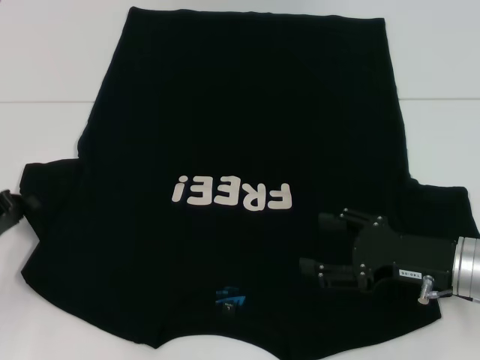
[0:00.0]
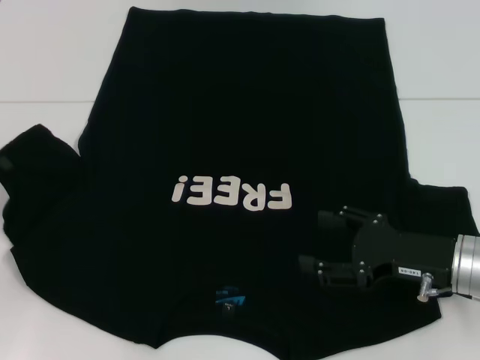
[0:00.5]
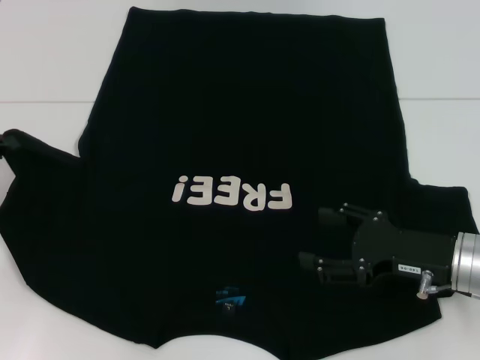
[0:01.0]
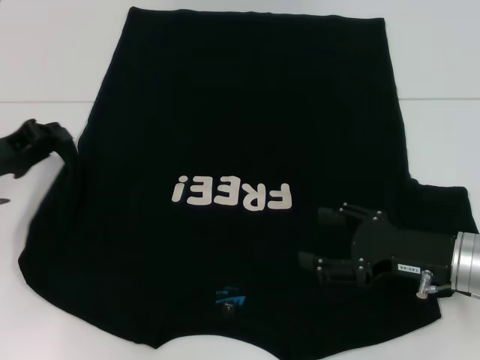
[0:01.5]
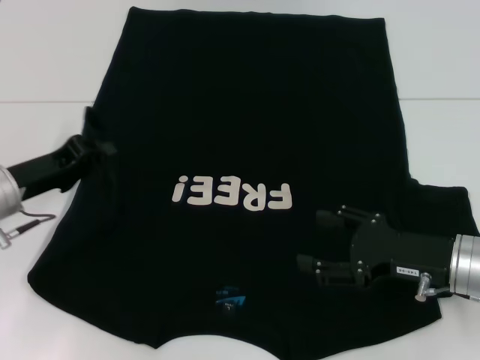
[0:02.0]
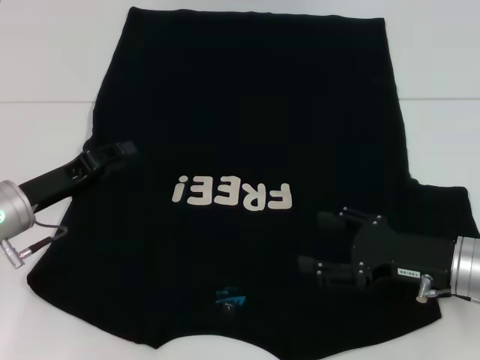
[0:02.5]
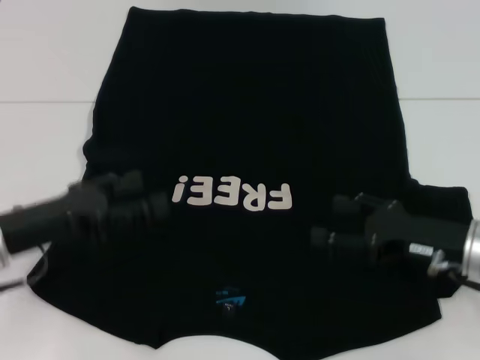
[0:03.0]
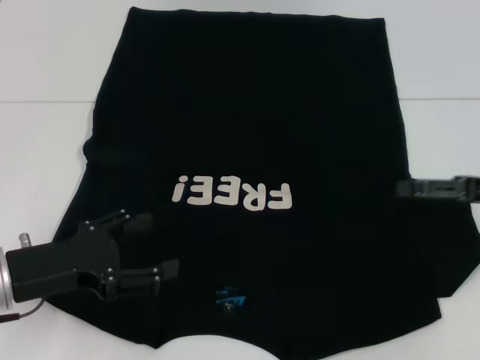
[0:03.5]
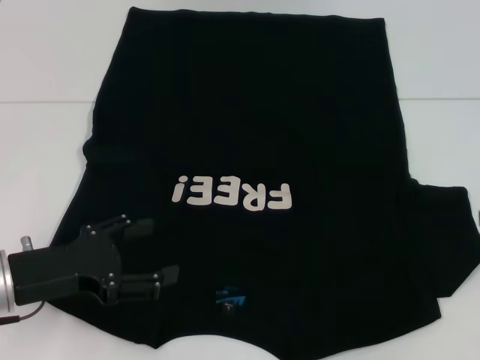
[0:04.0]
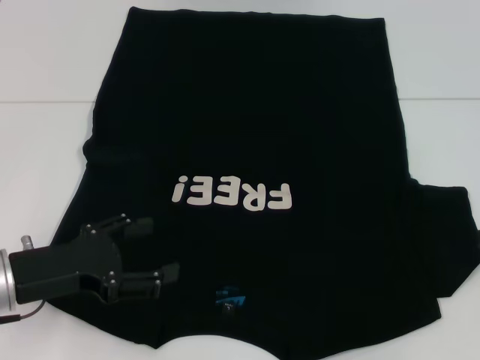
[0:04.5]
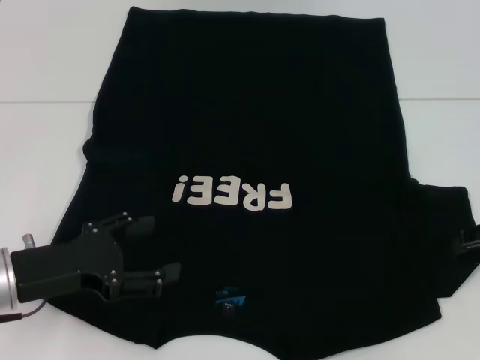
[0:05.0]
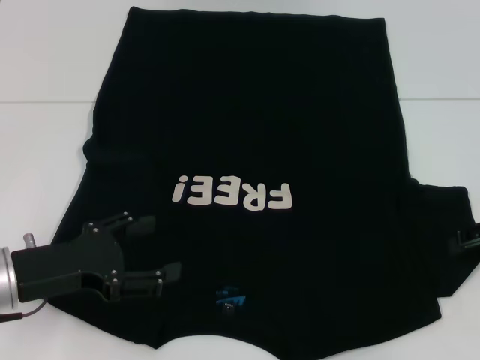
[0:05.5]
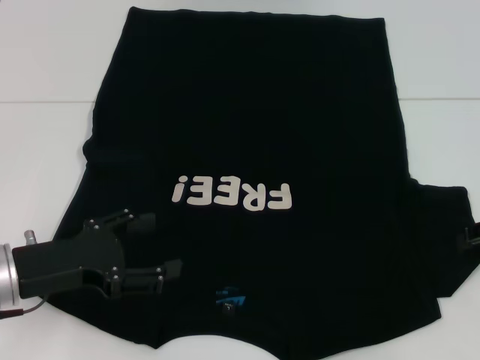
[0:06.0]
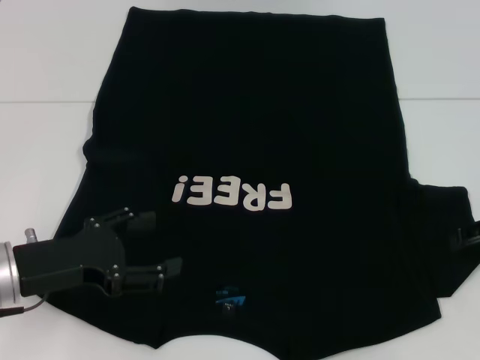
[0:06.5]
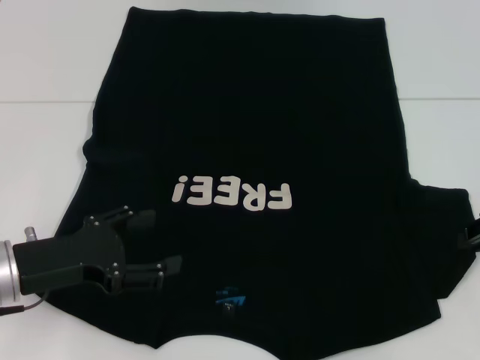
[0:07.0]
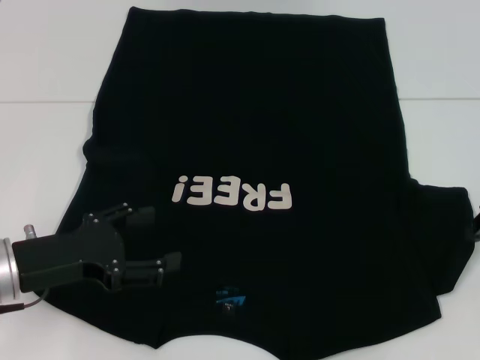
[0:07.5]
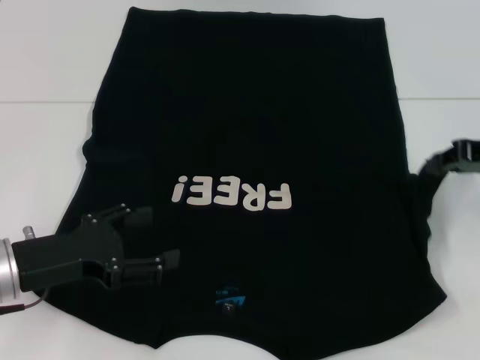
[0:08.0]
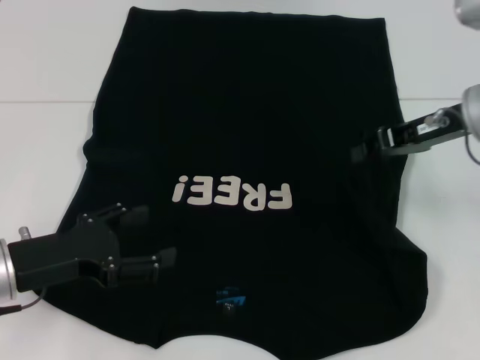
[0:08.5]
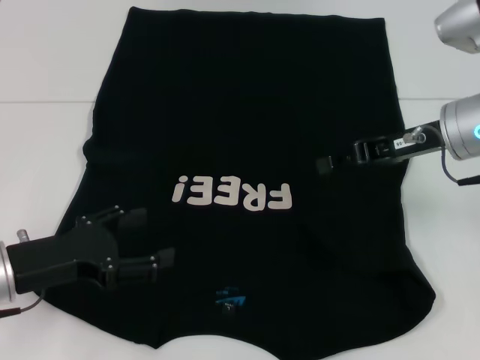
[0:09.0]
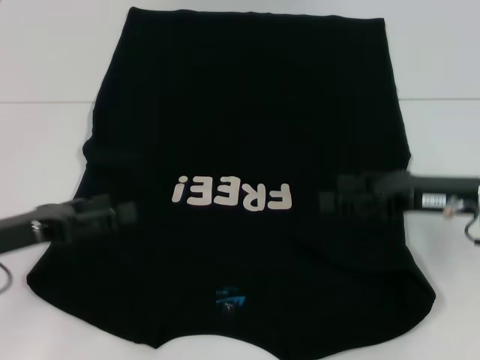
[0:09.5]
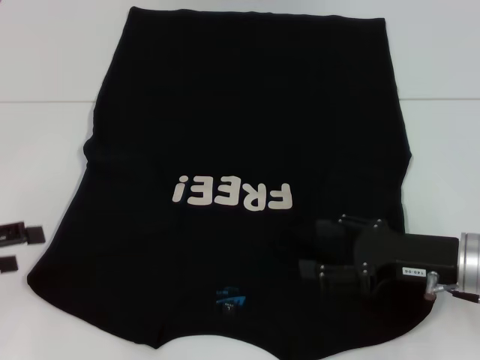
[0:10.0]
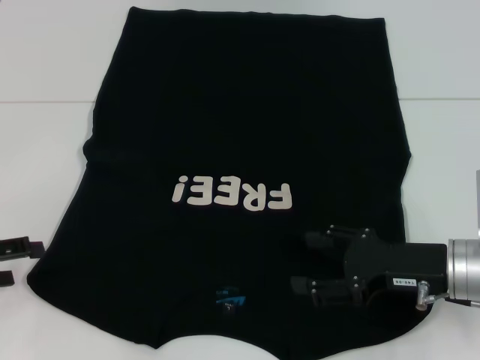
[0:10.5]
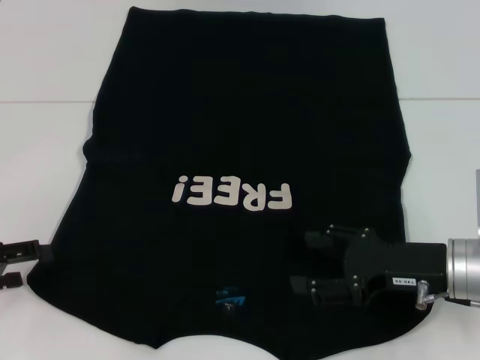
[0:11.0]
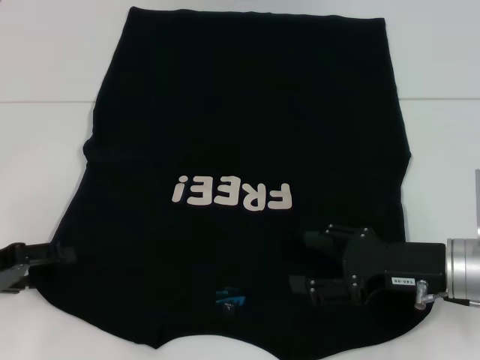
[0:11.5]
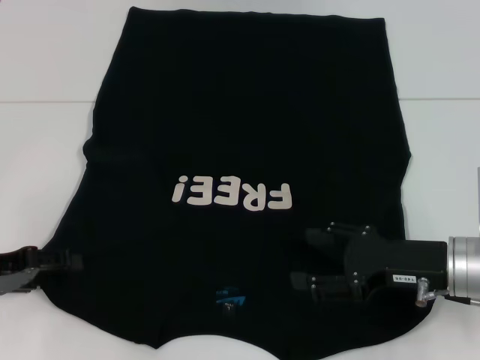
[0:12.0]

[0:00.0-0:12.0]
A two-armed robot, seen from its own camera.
Step, 0:00.0 to 0:03.0: Fold the bottom left sleeve with your left hand.
Step, 0:03.5 to 0:09.5: Fold the bottom right sleeve with your right hand.
0:00.0 to 0:02.0: The left gripper travels to the right by some 5 cm.
0:02.0 to 0:04.0: The right gripper moves to the right and upward, about 20 cm. Meanwhile the left gripper travels backward by about 10 cm, and opens up.
0:06.0 to 0:08.0: The right gripper ends up approximately 5 cm from where it was, and closes.
0:08.0 to 0:10.0: The right gripper goes about 15 cm downward, backward and to the left, and opens up. Meanwhile the left gripper travels to the left by about 10 cm.
0:10.0 to 0:12.0: The left gripper ends up some 5 cm from where it was.

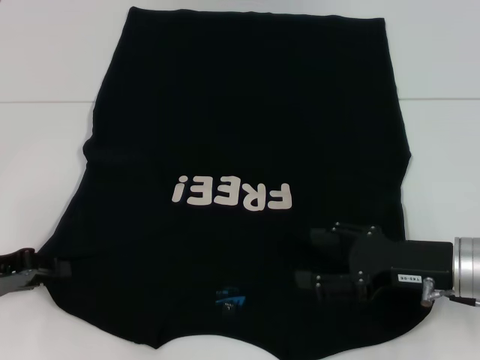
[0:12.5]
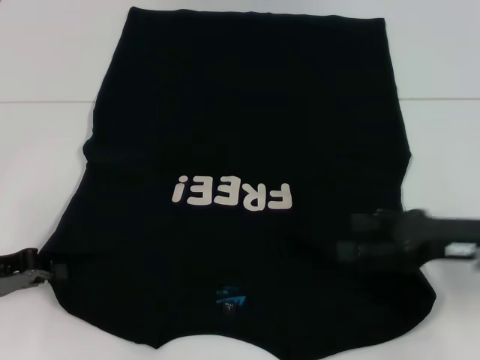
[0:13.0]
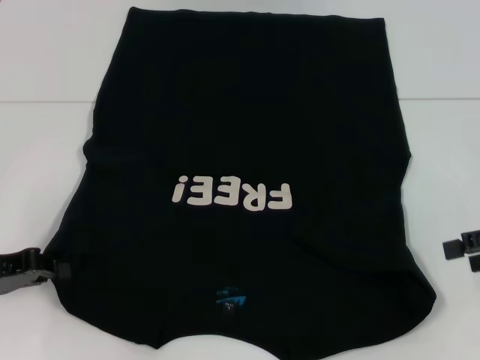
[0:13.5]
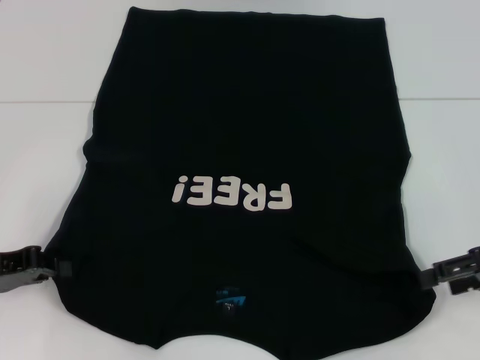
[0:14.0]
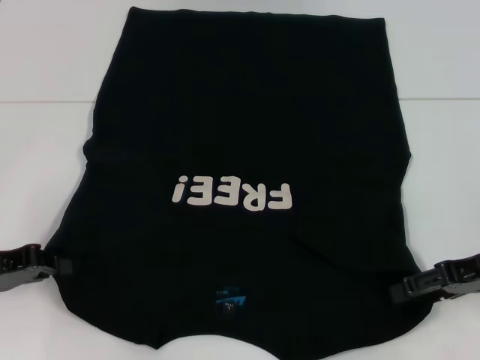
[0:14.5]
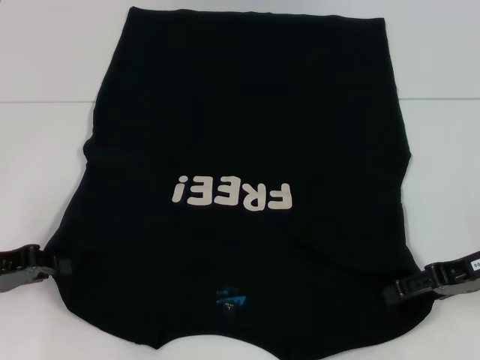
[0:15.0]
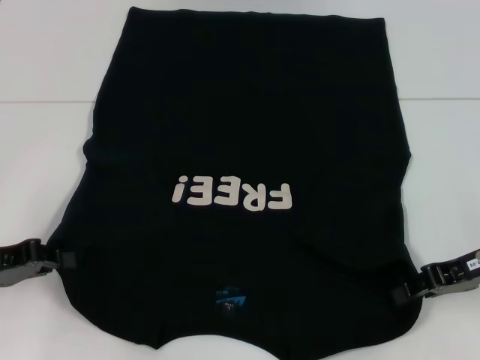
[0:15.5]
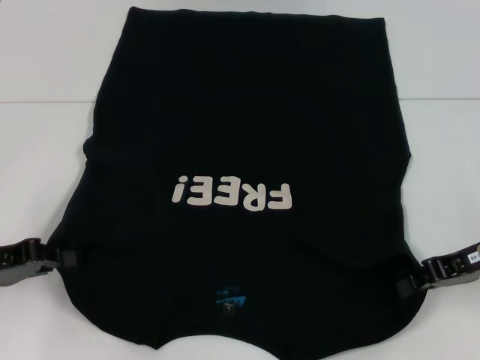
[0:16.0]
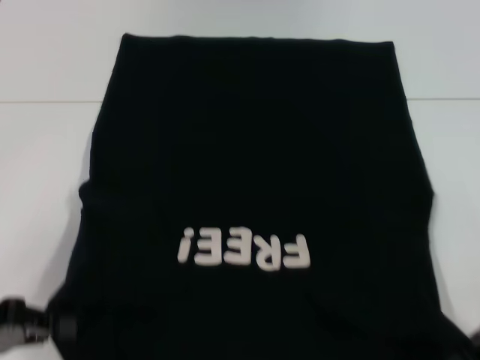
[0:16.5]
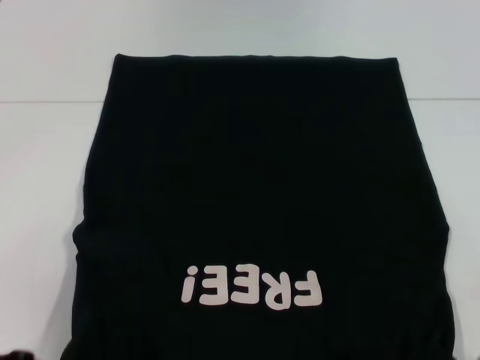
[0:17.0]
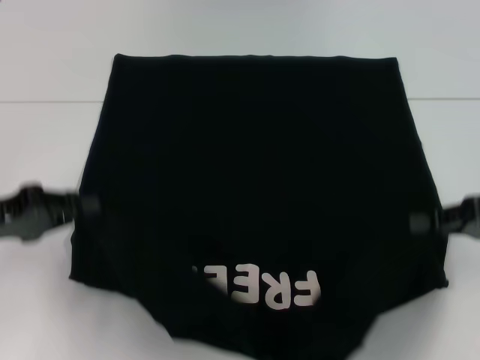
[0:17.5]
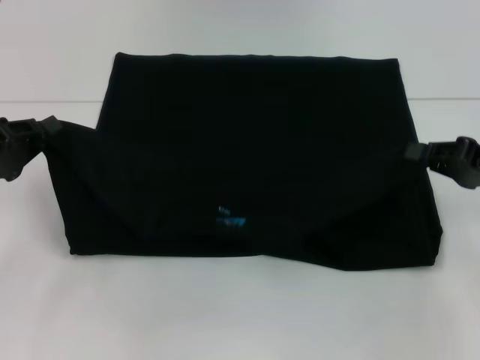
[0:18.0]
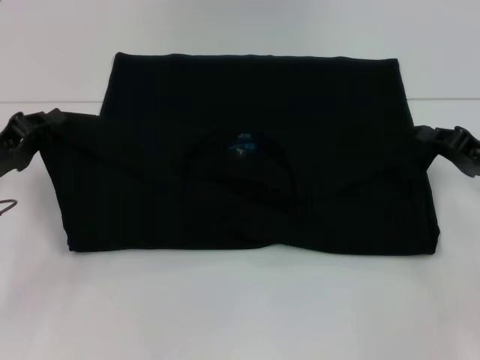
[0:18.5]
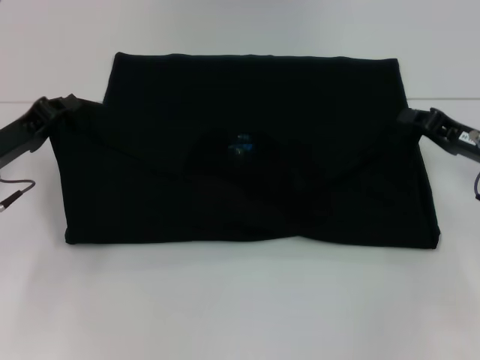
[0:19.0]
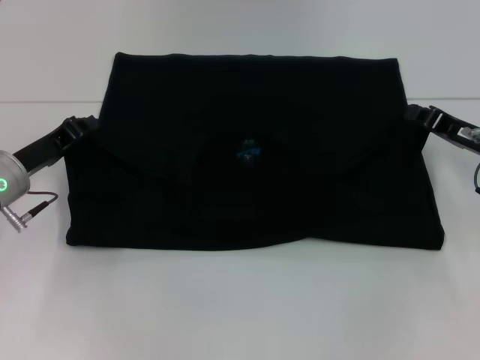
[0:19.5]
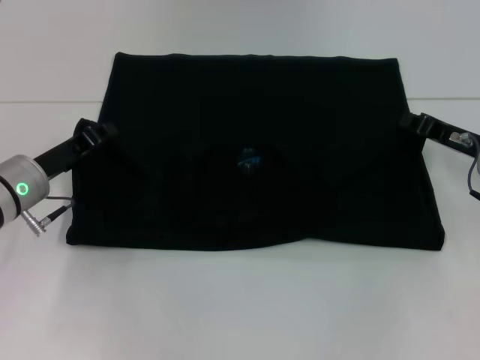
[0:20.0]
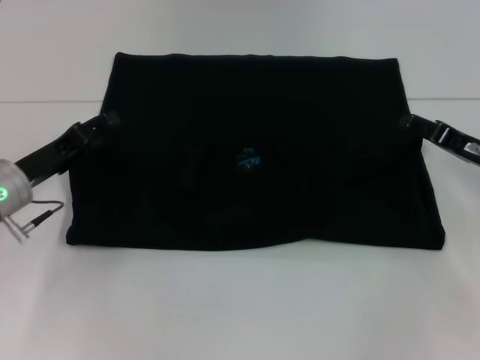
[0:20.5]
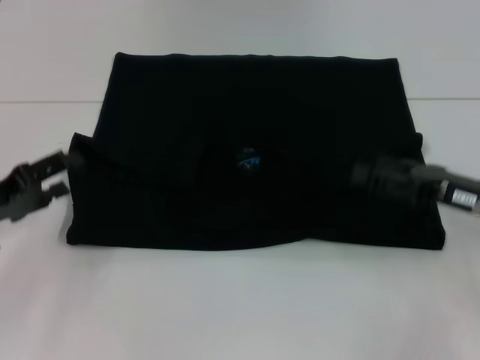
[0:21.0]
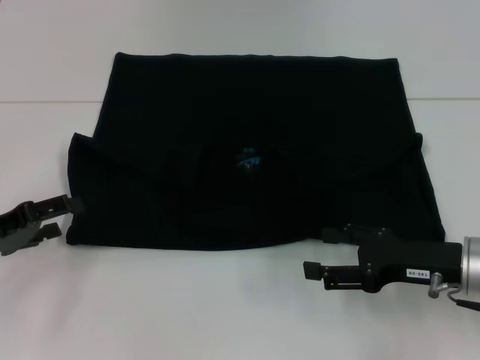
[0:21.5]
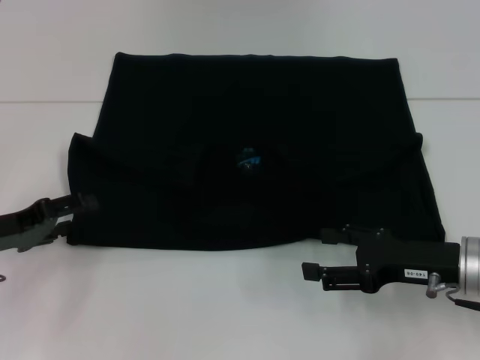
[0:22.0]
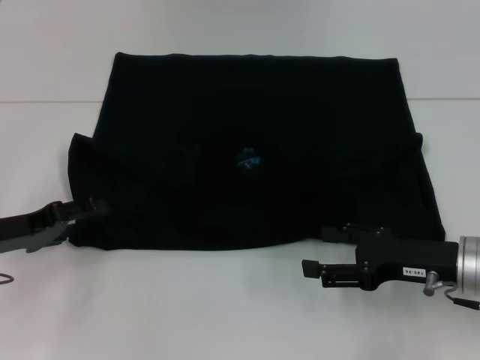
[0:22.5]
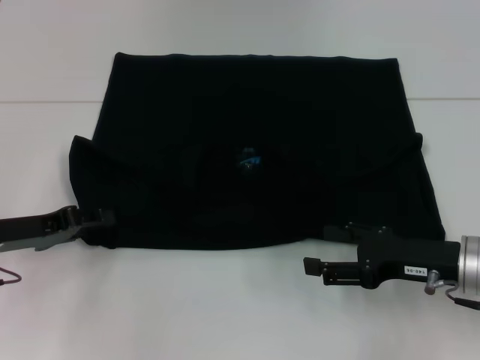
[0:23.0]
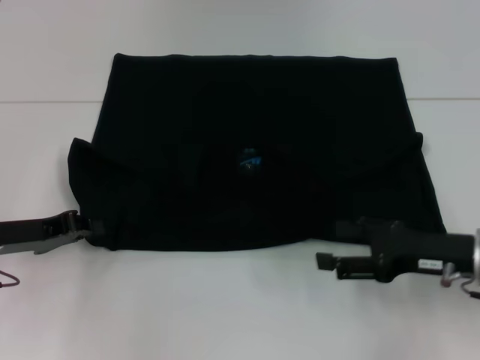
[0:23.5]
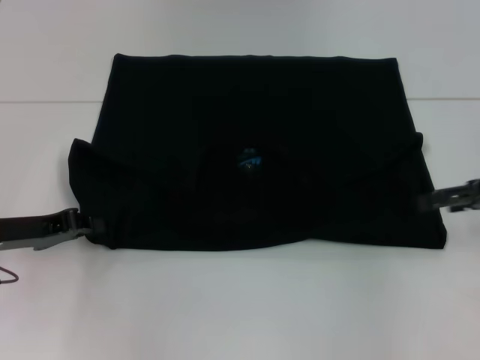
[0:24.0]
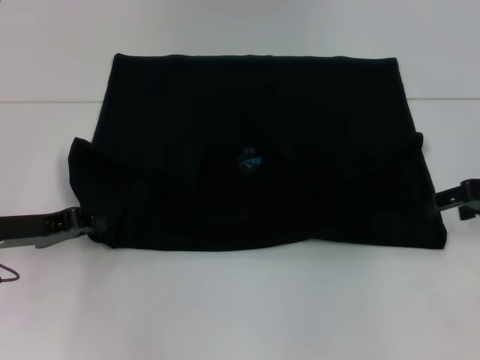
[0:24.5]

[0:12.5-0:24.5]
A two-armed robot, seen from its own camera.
Step, 0:12.5 to 0:16.0: Grab the bottom right corner with your right hand.
Step, 0:16.5 to 0:20.5: Fold the clothes with your left hand.
Step, 0:16.5 to 0:20.5: Fold the clothes with your right hand.
0:12.5 to 0:14.5: The left gripper closes its fingers. The right gripper heads to the right, covering some 5 cm.
0:14.5 to 0:16.5: The right gripper closes; the left gripper travels backward by some 5 cm.
0:16.5 to 0:18.5: The right gripper travels downward by approximately 5 cm; the left gripper heads forward, covering some 10 cm.
0:18.5 to 0:20.5: The right gripper opens. Meanwhile the left gripper changes place by about 5 cm, and opens its fingers.
0:20.5 to 0:22.5: The right gripper shifts about 10 cm backward and to the left, and opens up; the left gripper changes place by roughly 5 cm, and opens up.
0:22.5 to 0:24.5: The left gripper closes, while the right gripper shifts roughly 15 cm upward, to the right and forward.

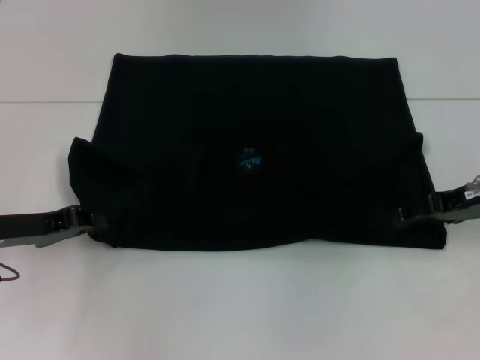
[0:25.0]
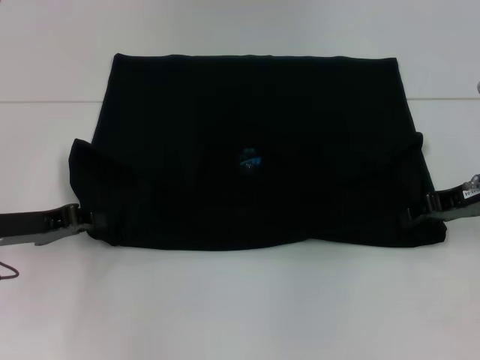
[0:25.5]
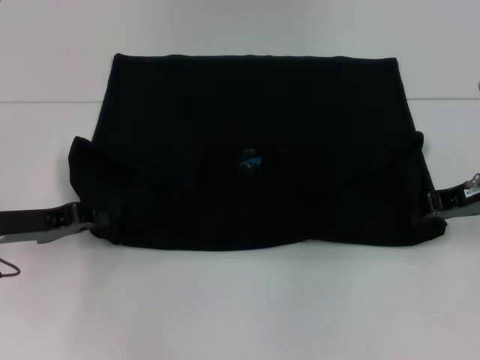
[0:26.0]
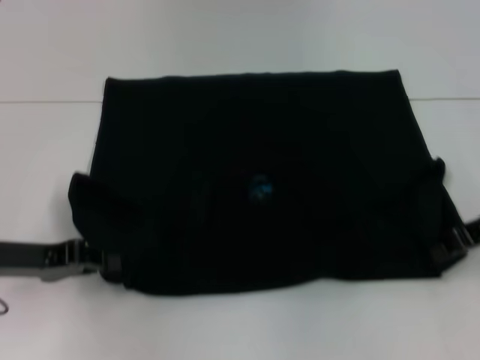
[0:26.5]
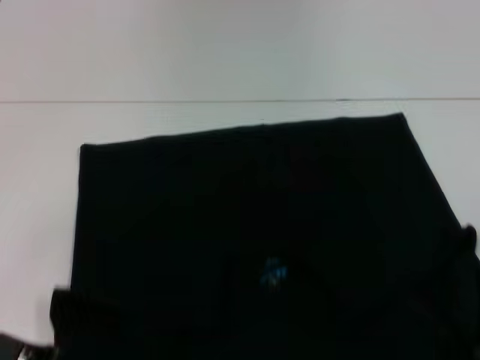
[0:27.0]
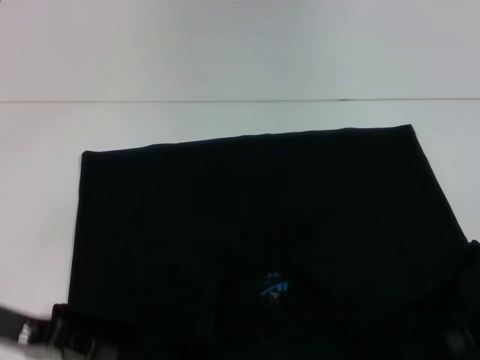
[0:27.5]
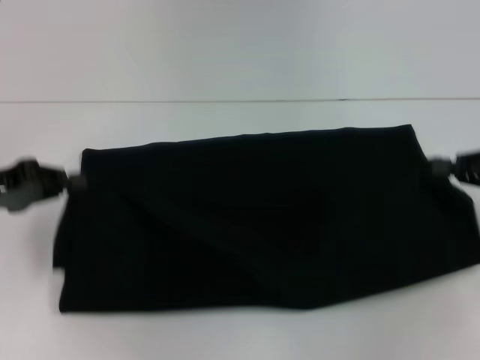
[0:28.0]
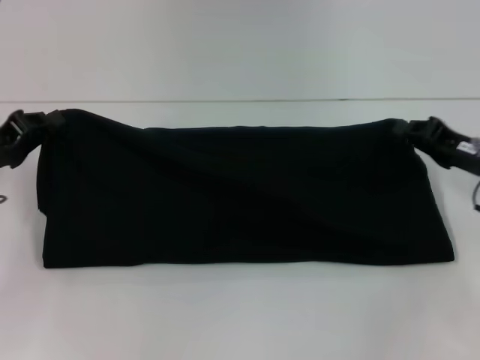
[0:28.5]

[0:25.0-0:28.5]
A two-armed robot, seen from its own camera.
Step, 0:25.0 to 0:27.0: Pull the clothes with your left hand.
Step, 0:25.0 to 0:27.0: Pull the clothes with your right hand.
0:25.0 to 0:27.0: Both grippers move backward, some 5 cm. The right gripper closes its fingers.
0:27.0 to 0:28.5: The left gripper heads forward, covering about 10 cm, while the right gripper is displaced forward by some 5 cm.
